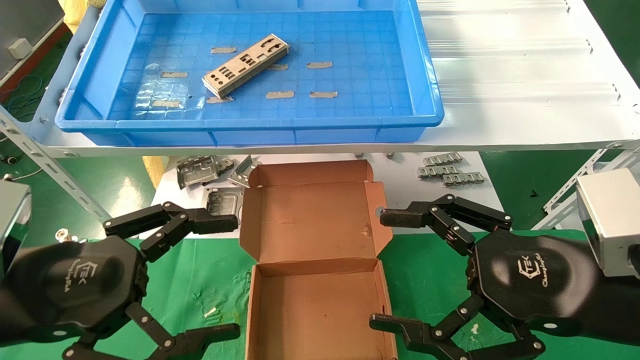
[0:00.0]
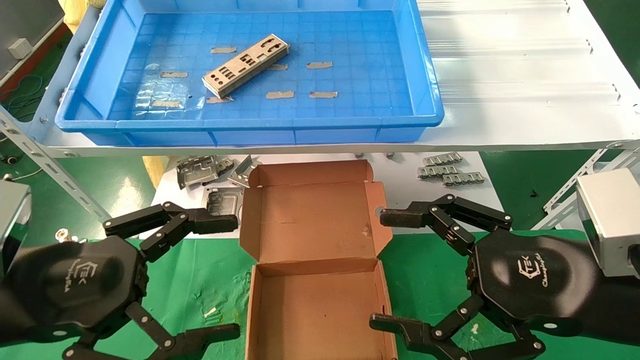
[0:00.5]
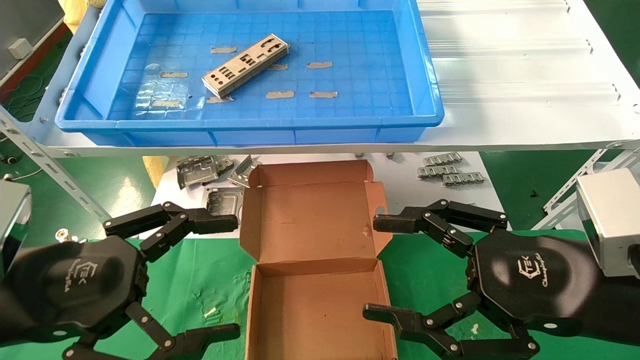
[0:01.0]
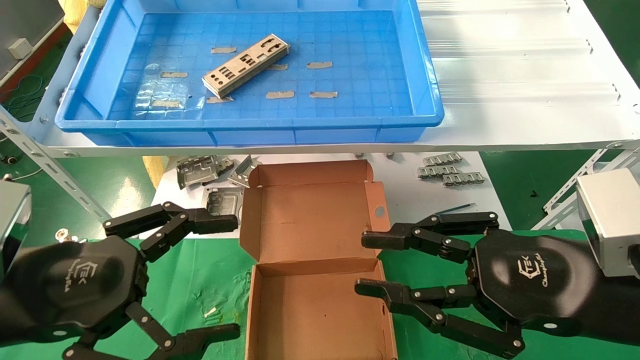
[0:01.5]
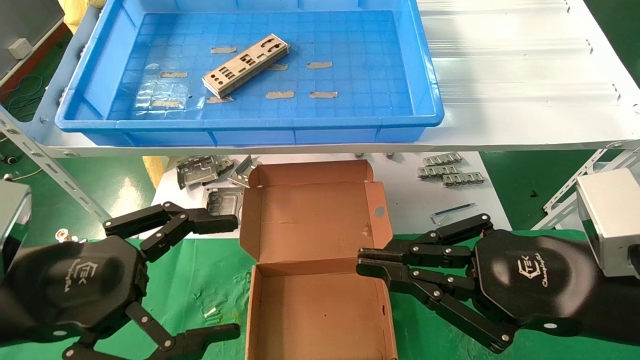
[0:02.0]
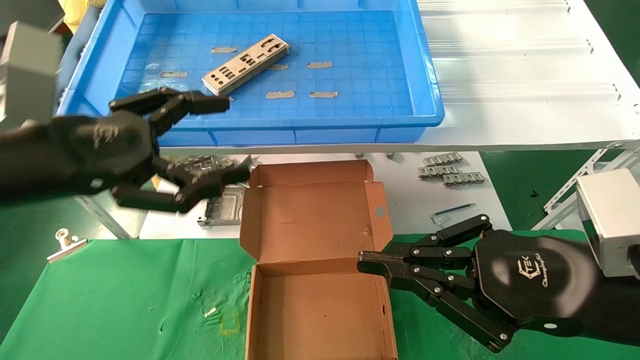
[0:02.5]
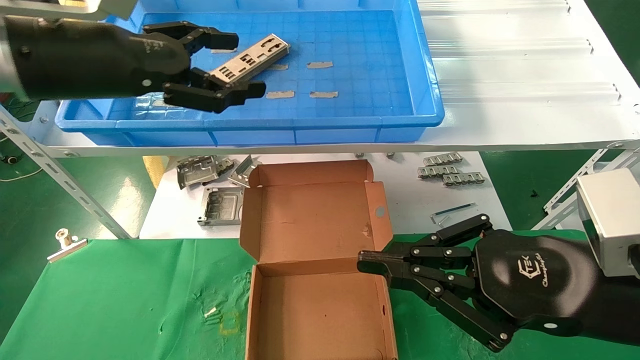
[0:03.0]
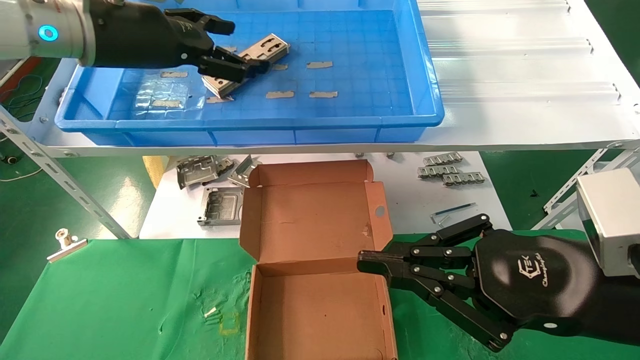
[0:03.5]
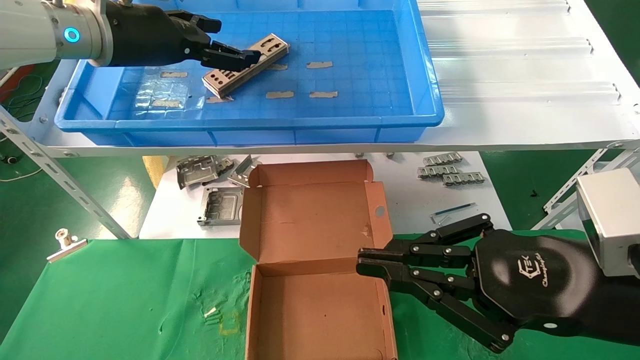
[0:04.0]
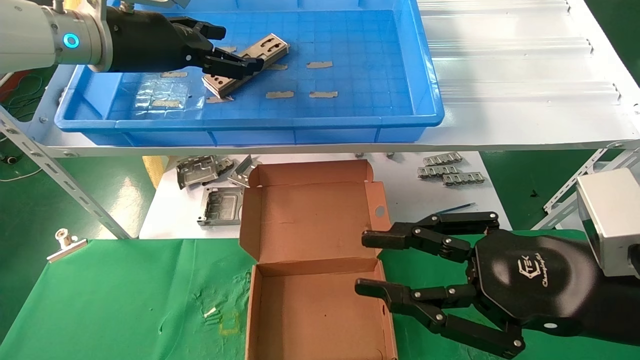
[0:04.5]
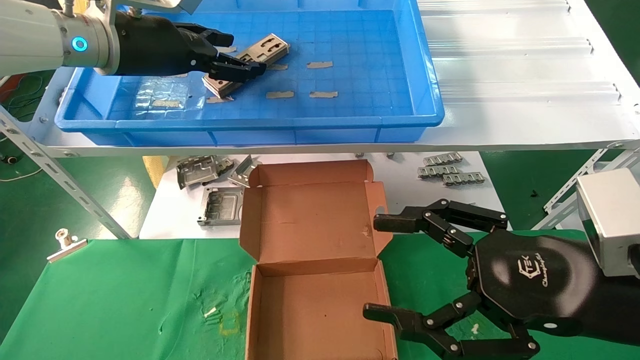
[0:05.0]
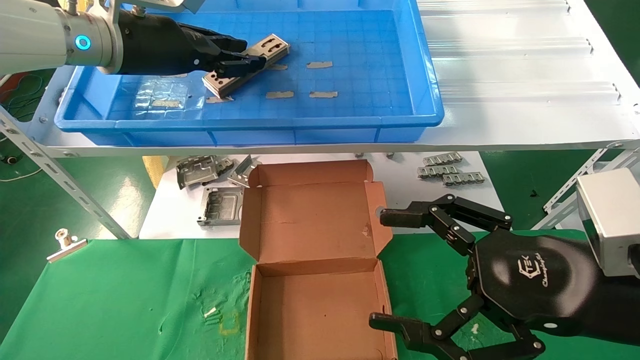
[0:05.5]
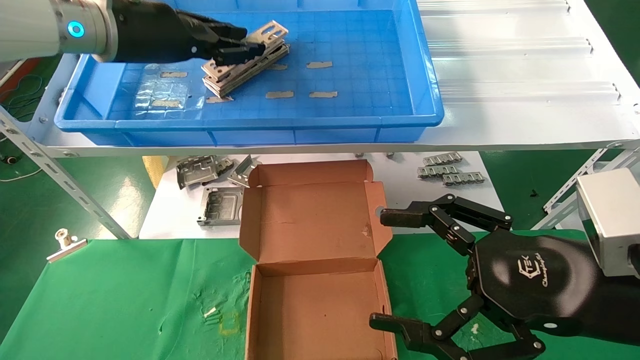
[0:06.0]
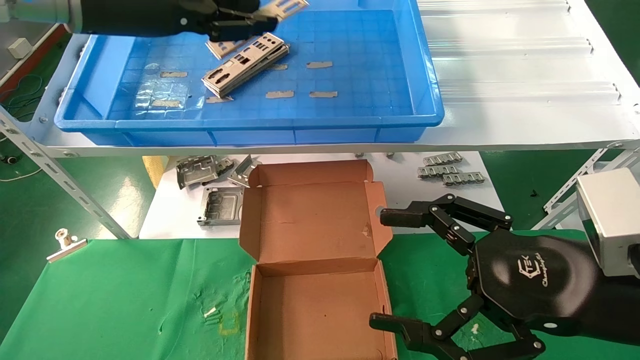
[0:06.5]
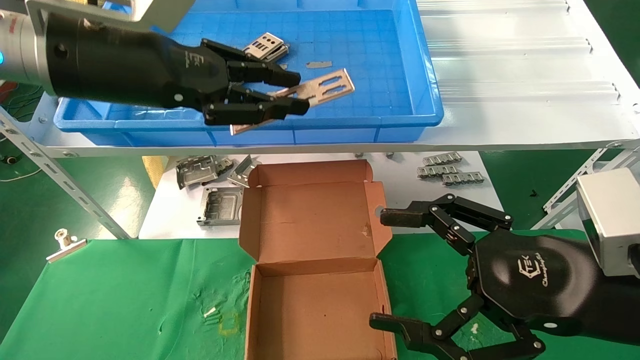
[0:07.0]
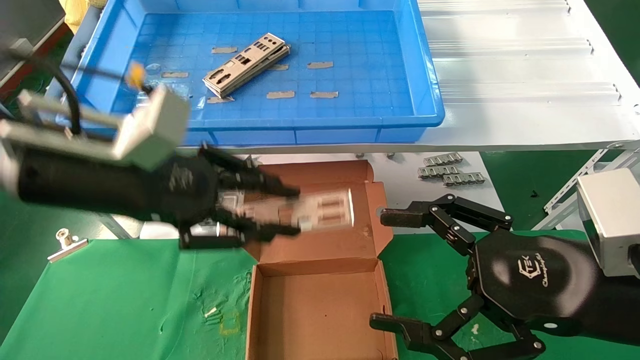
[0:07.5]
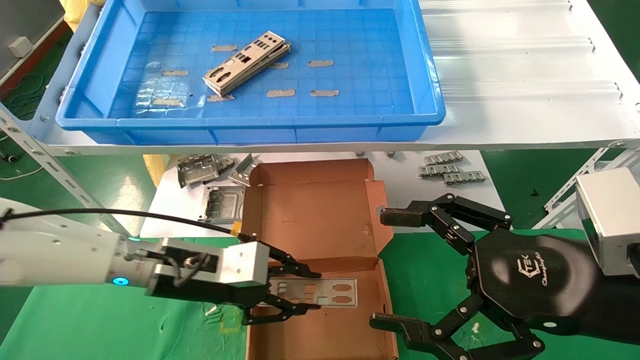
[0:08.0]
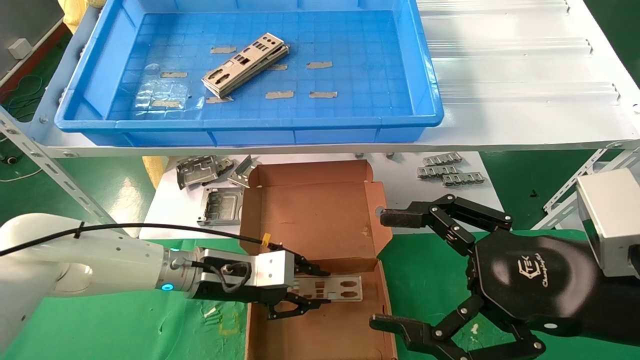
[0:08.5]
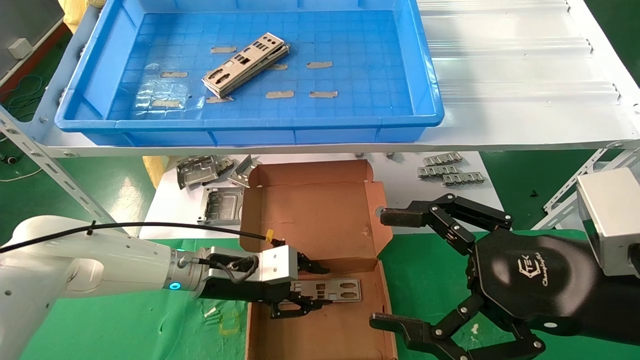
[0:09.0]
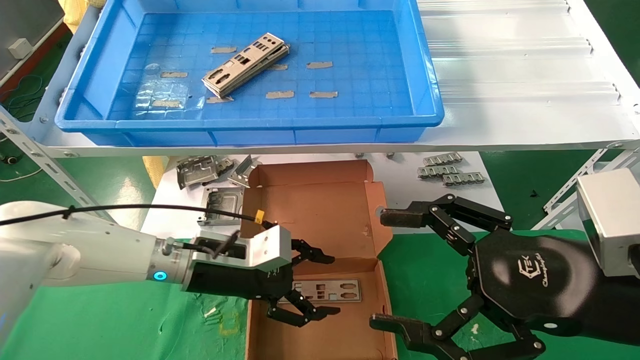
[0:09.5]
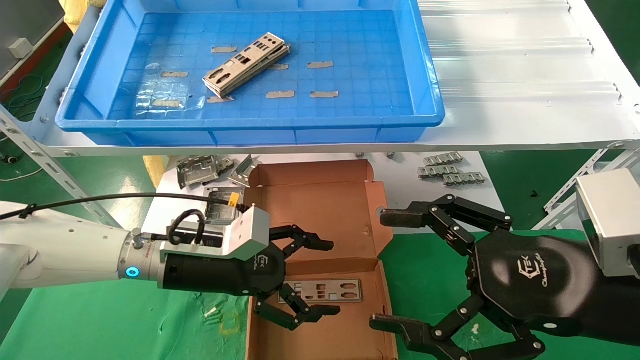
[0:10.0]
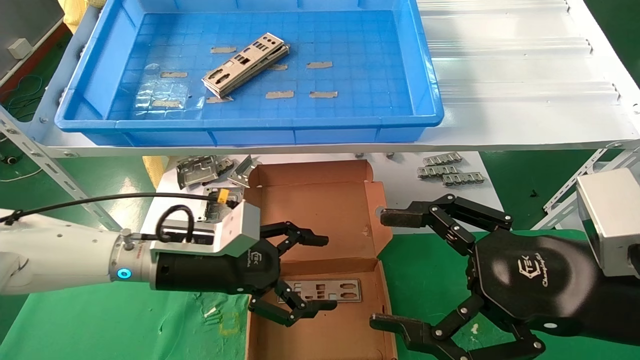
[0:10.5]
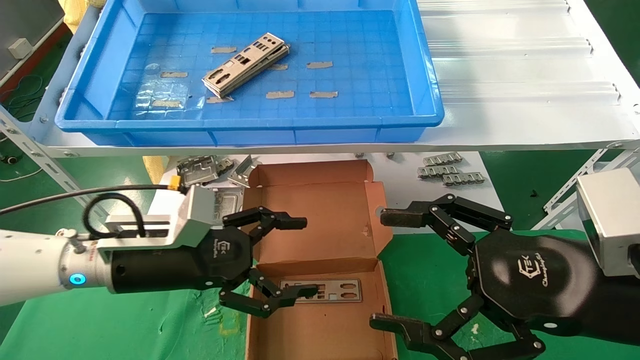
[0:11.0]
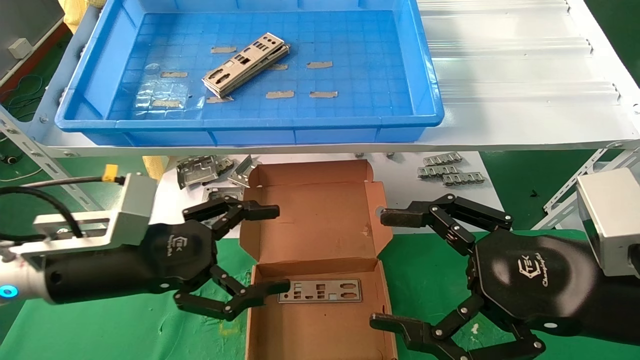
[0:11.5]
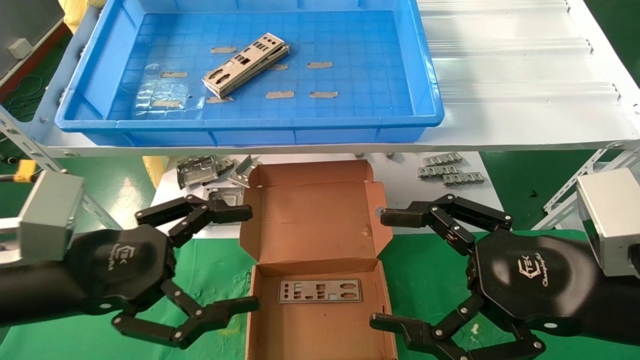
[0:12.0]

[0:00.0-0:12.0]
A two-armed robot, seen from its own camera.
Task of the whole recording: pick up the parts on the tray and put them in the cardboard box.
Step, 0:02.5 to 0:05.5: Pick up the IO bracket from the container box.
Step, 0:06.0 to 0:09.0: Place the IO bracket into the ingredient slot.
0:00.0 to 0:02.0: The right gripper closes.
0:02.0 to 0:04.0: The left gripper heads forward and upward, covering some 30 cm.
0:04.0 to 0:06.0: The right gripper opens; the left gripper closes its fingers.
0:06.0 to 0:08.0: The left gripper heads downward, covering roughly 25 cm.
0:08.0 to 0:10.0: The left gripper opens up.
0:10.0 to 0:12.0: The left gripper moves backward, to the left and upward, some 20 cm.

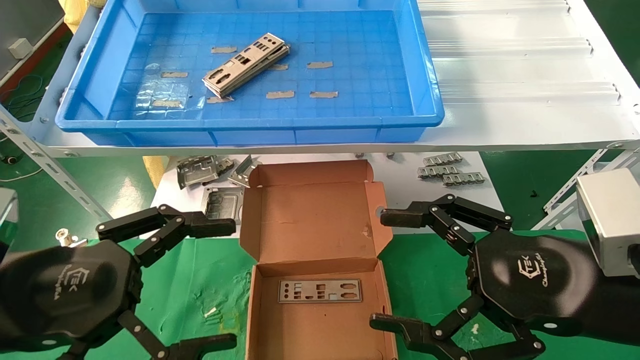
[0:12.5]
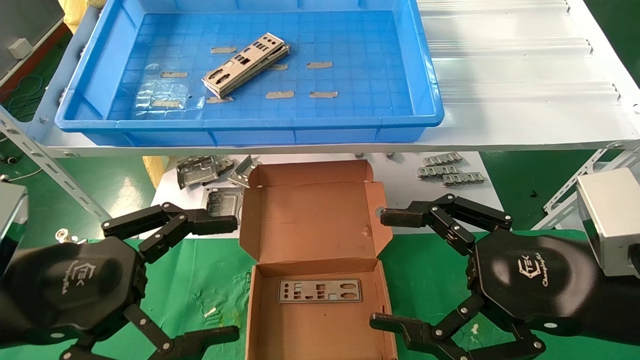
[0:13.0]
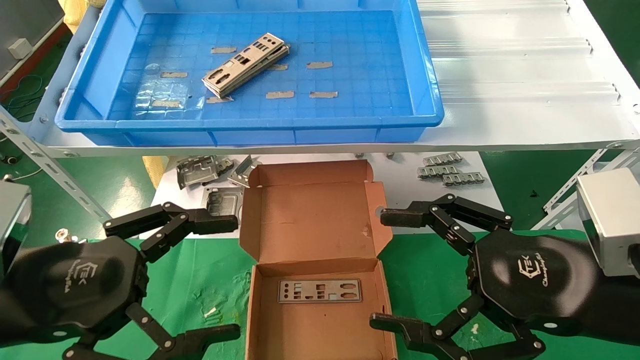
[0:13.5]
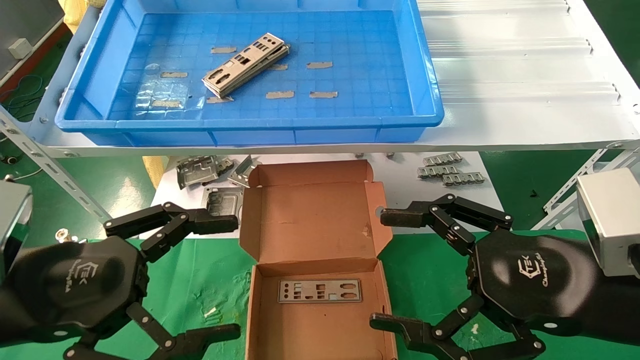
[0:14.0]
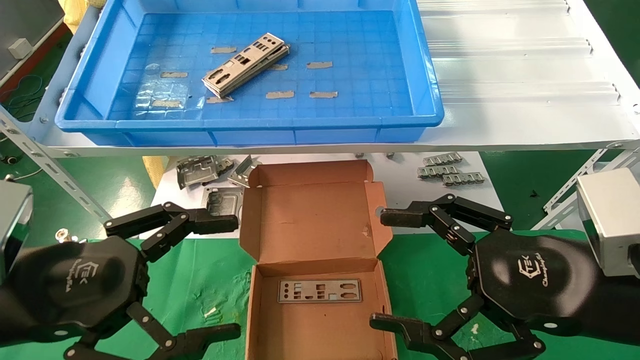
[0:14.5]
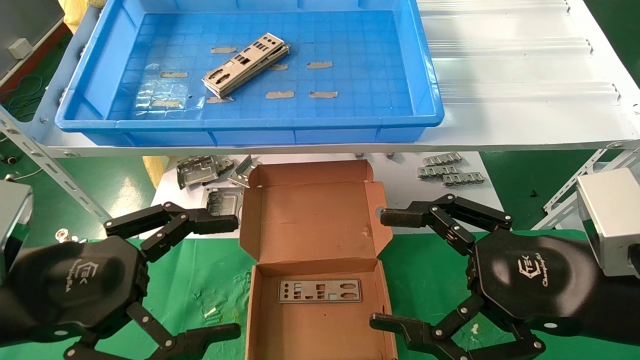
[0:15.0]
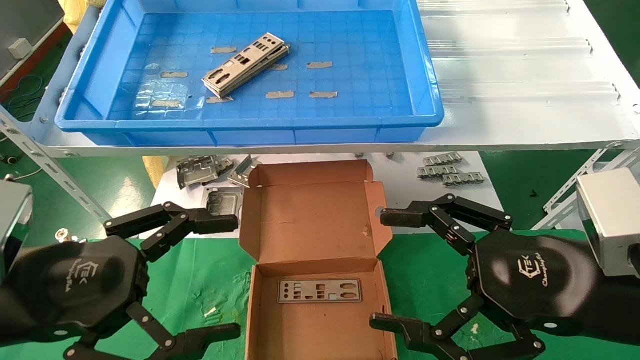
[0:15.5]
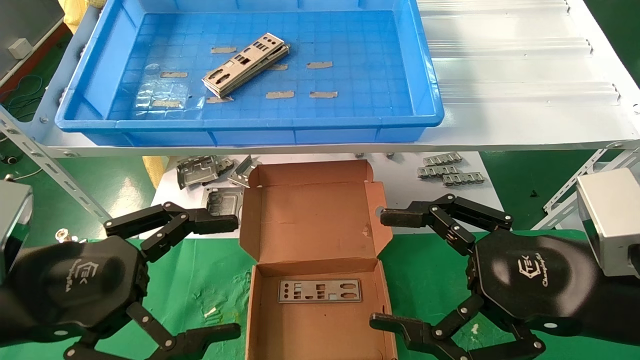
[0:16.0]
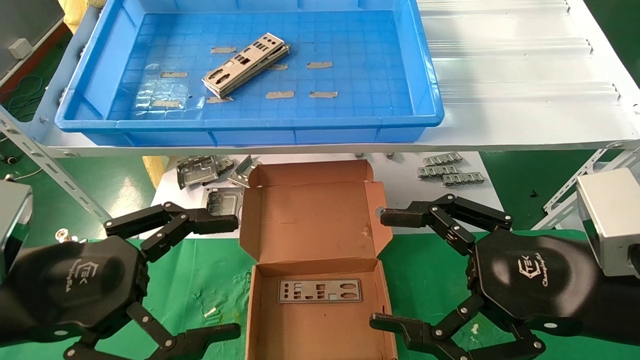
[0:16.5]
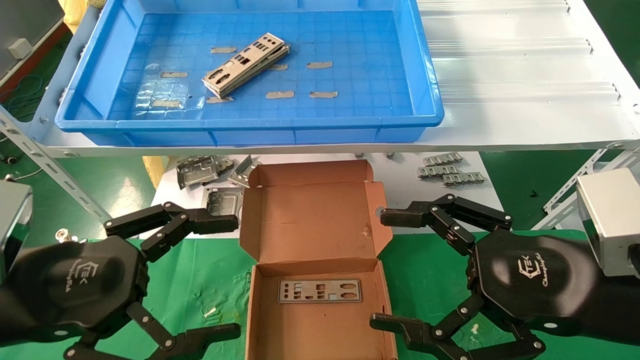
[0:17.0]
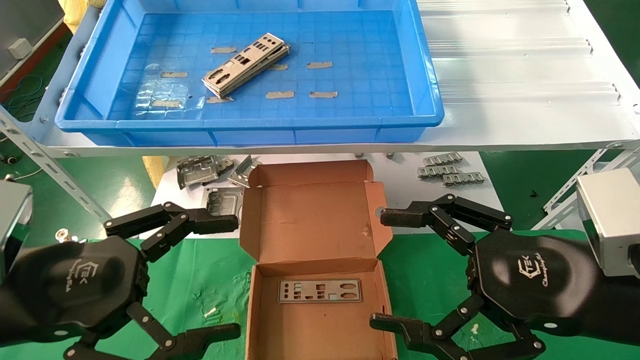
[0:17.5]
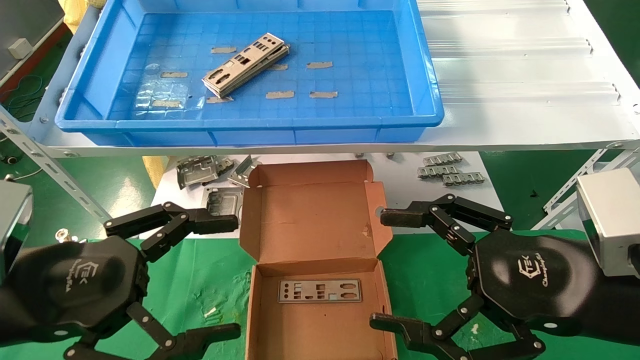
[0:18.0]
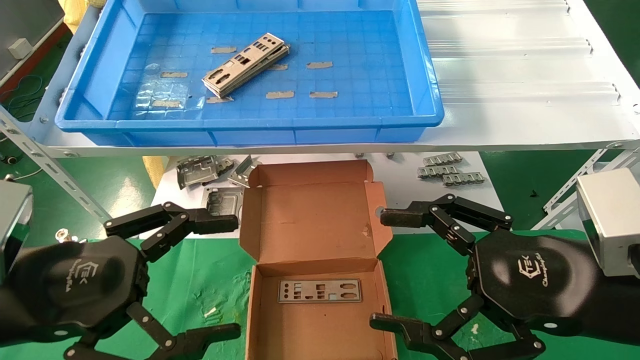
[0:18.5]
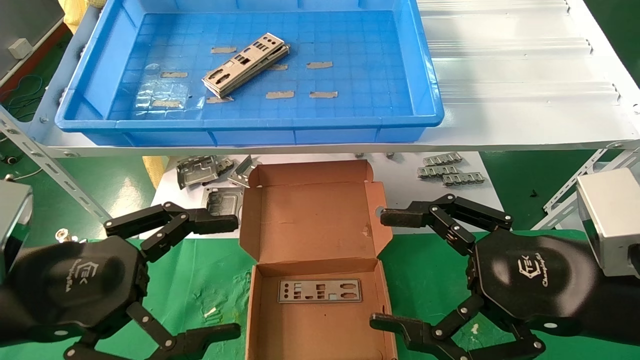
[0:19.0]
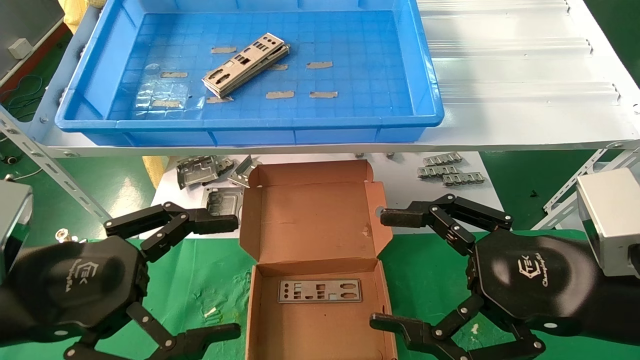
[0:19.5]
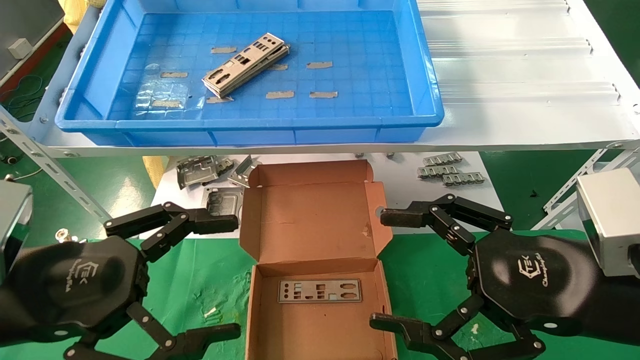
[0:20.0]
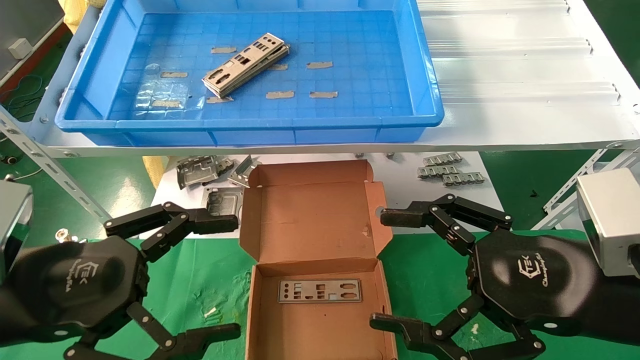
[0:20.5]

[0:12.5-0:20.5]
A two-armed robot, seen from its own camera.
Task of the whole recording: pick up the parts on the tray and put them in the cardboard box.
0:12.5 to 0:20.5: Neither gripper changes place.
